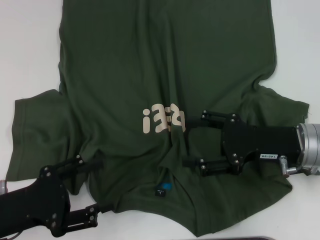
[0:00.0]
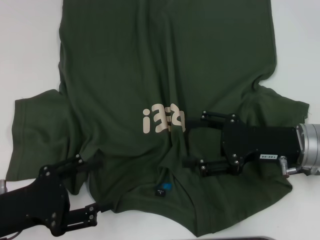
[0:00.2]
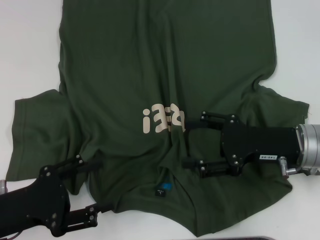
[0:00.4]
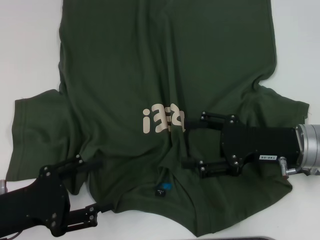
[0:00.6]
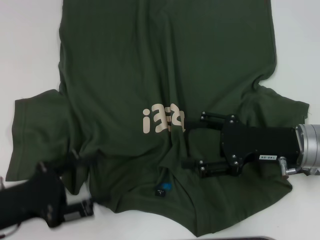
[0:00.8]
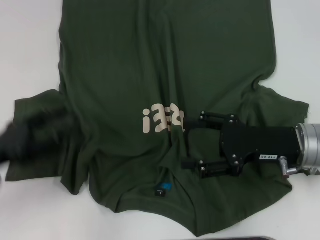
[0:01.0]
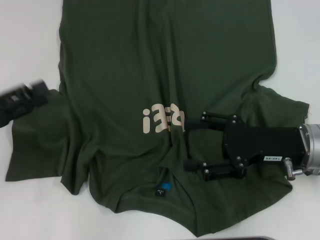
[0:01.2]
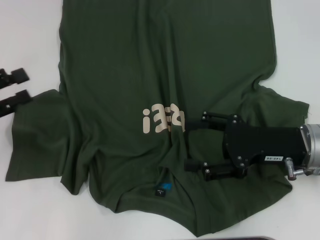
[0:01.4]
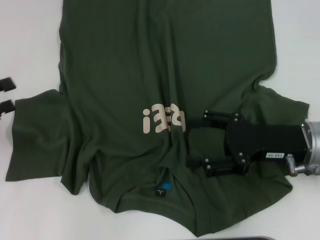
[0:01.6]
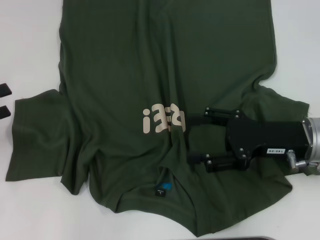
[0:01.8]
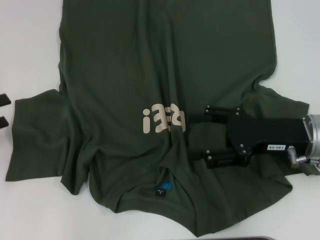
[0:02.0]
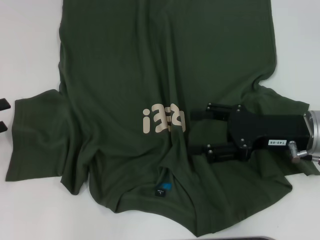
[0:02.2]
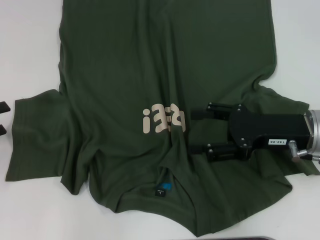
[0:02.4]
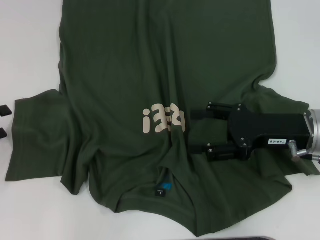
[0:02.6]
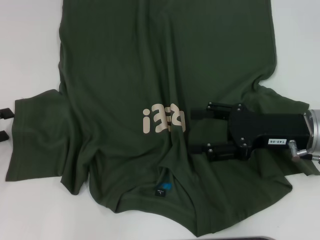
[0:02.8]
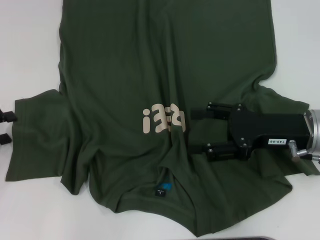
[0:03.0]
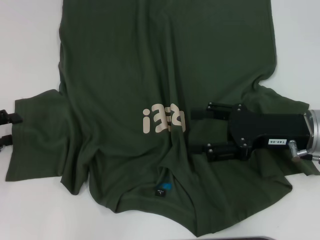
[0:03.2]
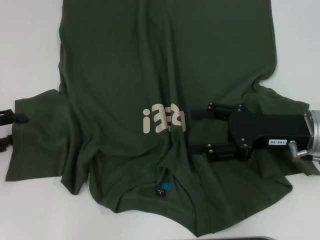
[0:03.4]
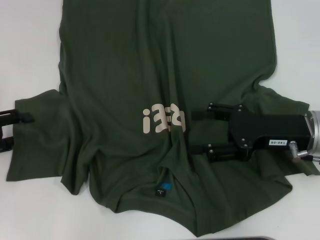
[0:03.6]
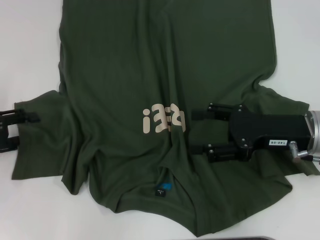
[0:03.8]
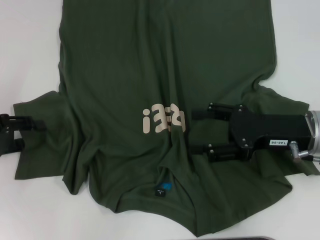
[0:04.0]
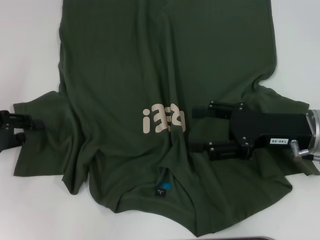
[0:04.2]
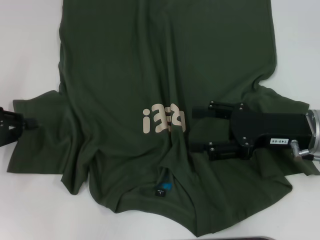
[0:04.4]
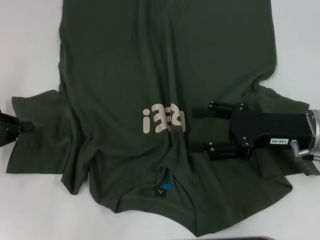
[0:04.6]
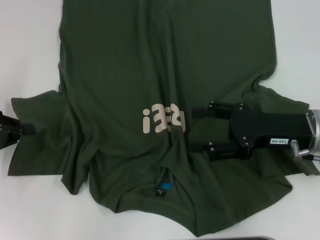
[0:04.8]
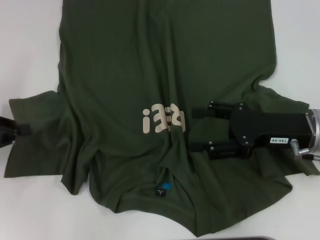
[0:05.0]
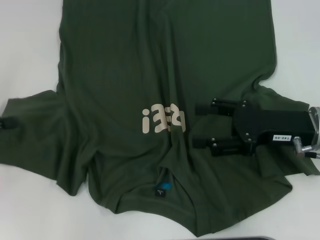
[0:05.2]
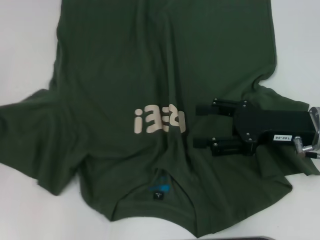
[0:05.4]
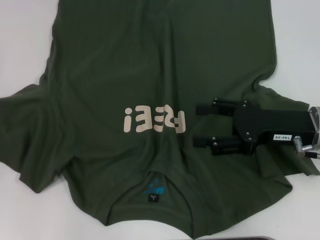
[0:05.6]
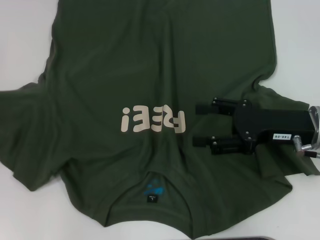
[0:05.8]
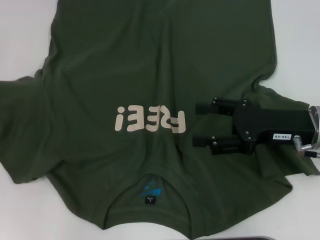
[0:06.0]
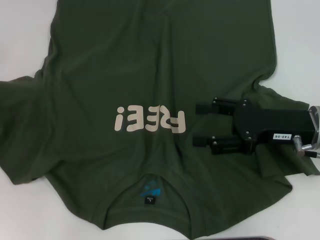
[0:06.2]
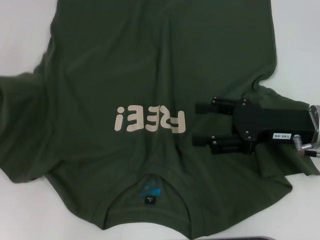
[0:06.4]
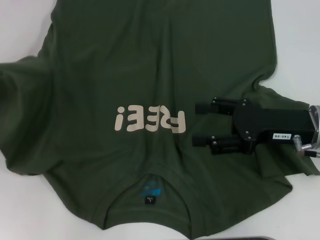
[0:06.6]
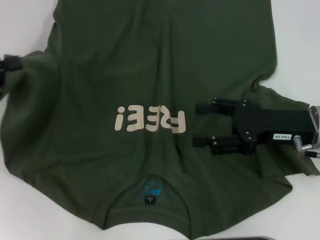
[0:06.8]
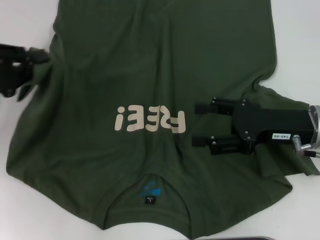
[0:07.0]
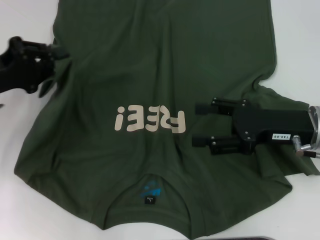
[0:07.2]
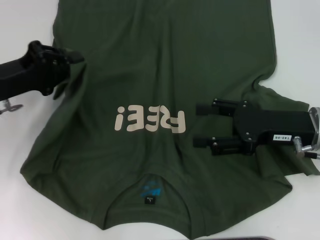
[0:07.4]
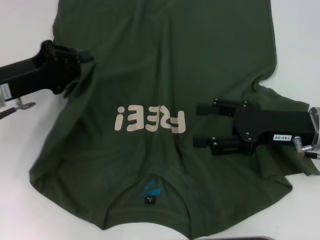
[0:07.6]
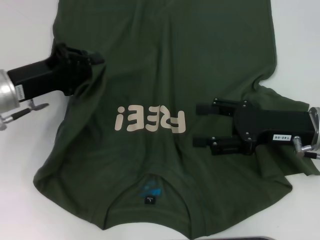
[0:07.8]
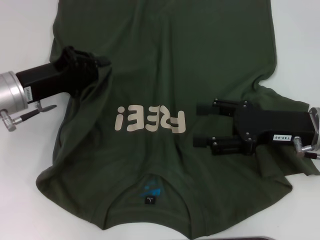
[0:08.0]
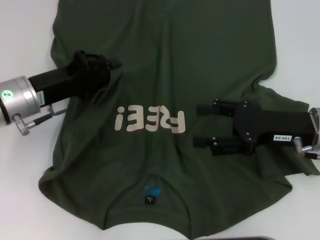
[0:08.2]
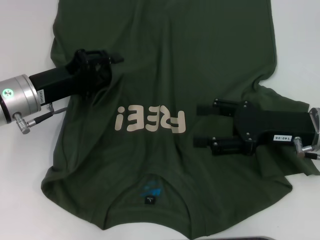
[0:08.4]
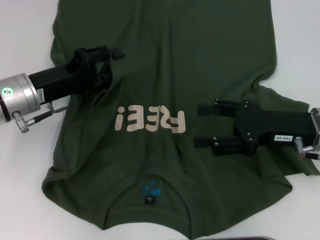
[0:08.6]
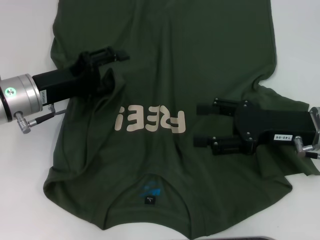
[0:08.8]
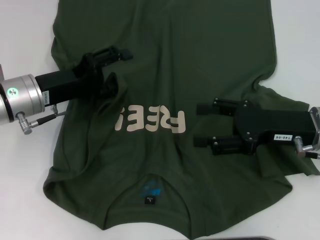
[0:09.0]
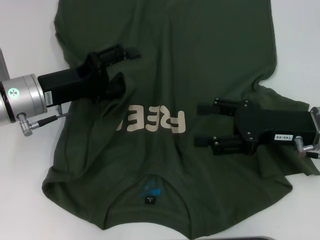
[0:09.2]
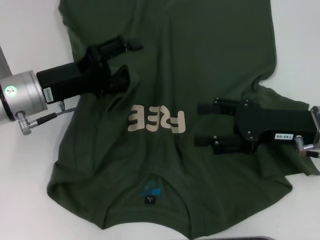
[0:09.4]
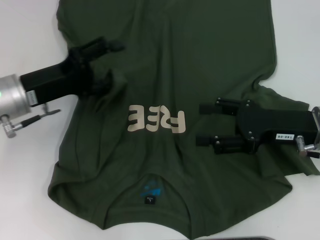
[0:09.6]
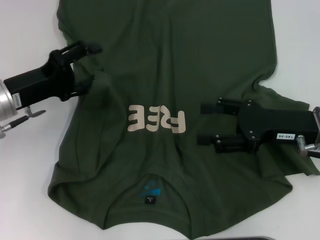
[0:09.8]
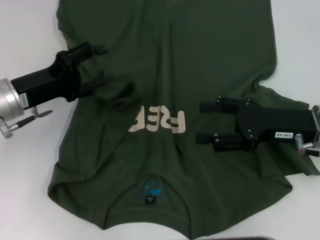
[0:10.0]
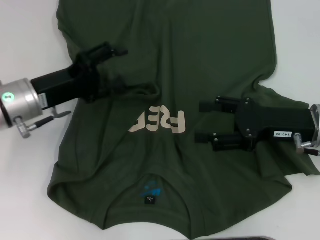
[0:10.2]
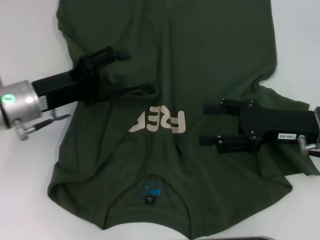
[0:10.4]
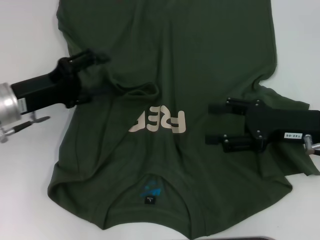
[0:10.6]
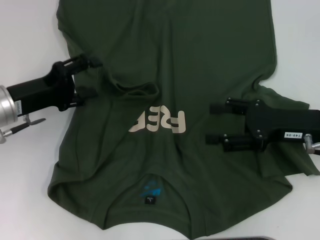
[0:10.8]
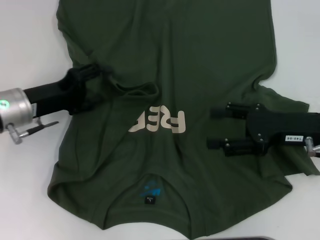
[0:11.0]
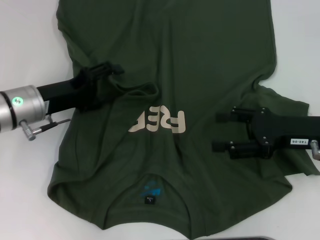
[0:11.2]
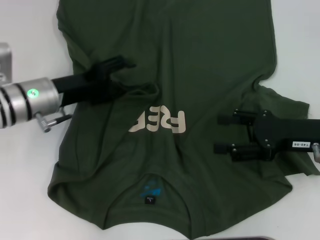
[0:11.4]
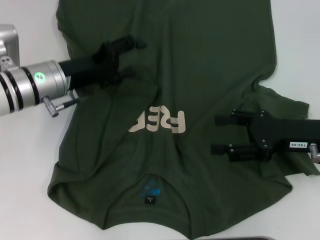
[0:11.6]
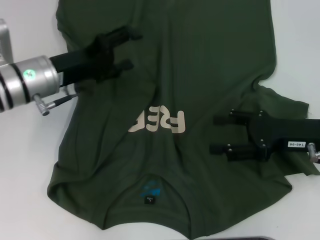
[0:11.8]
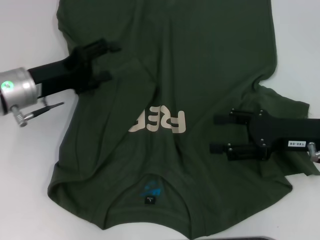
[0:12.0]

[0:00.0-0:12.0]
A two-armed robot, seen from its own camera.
0:00.0 to 0:01.6: The left gripper heads to the left and forward, covering approximately 15 cm.
0:01.6 to 0:03.0: The grippers make only small movements.
0:03.0 to 0:04.4: The left gripper closes.
0:04.4 to 0:06.0: The left gripper heads to the left, covering roughly 5 cm.
0:06.0 to 0:07.6: The left gripper is displaced to the right by roughly 15 cm.
0:07.6 to 0:09.0: The left gripper ends up some 5 cm from where it was, and opens up.
0:09.0 to 0:12.0: The grippers make only small movements.

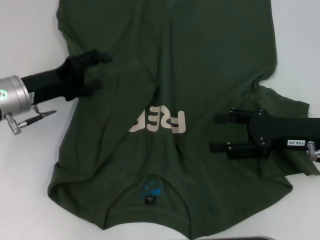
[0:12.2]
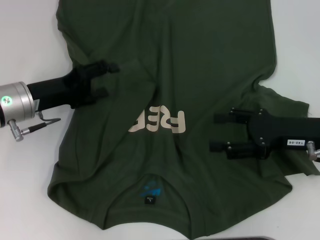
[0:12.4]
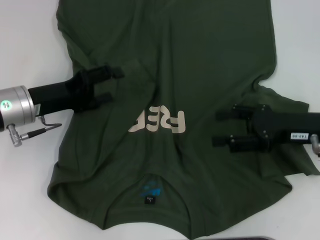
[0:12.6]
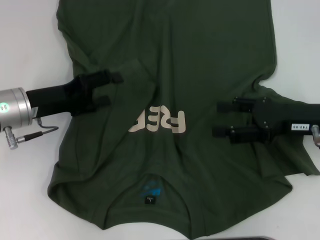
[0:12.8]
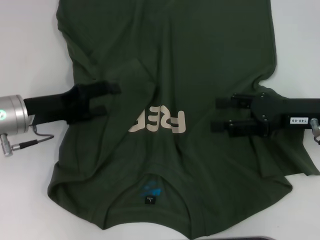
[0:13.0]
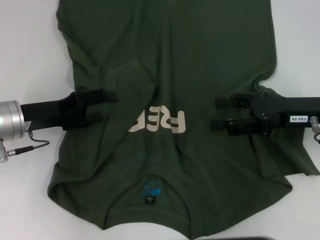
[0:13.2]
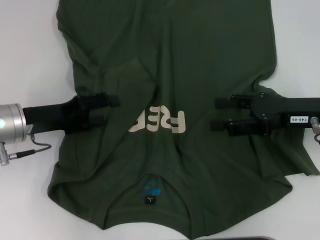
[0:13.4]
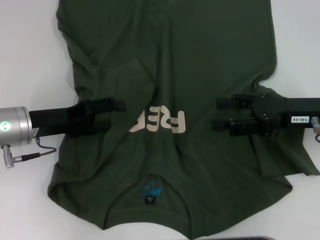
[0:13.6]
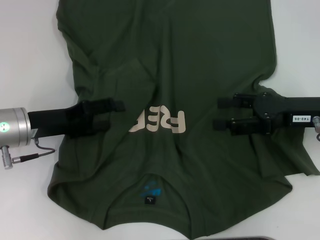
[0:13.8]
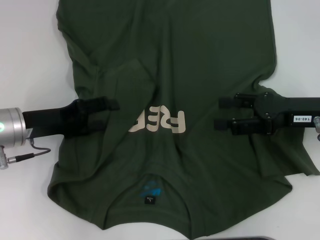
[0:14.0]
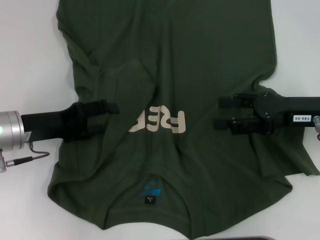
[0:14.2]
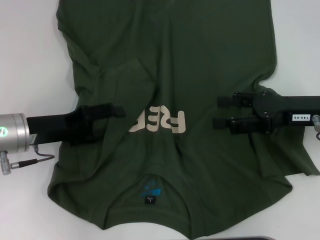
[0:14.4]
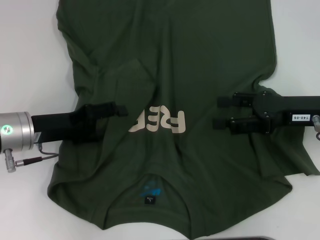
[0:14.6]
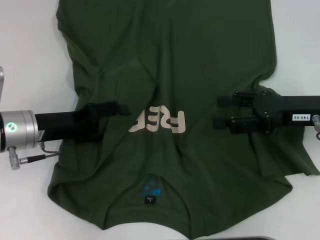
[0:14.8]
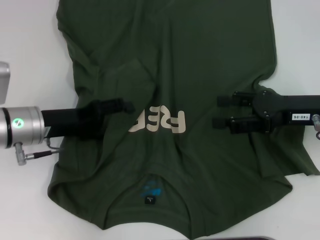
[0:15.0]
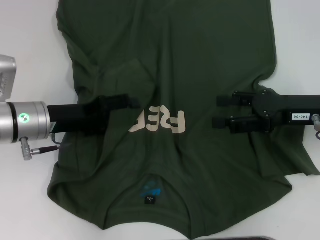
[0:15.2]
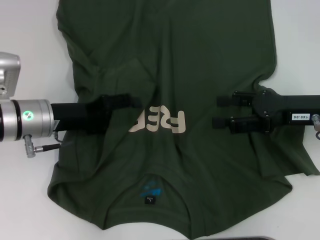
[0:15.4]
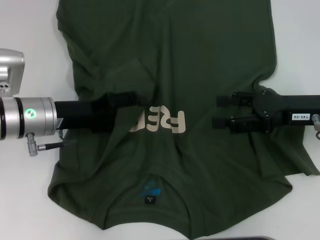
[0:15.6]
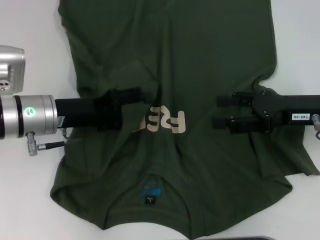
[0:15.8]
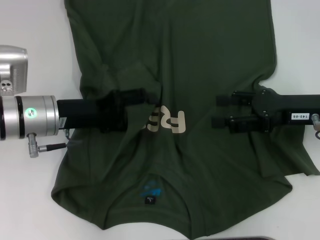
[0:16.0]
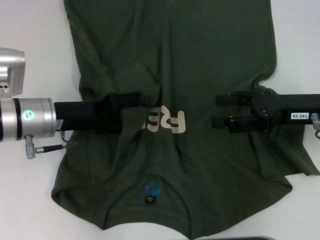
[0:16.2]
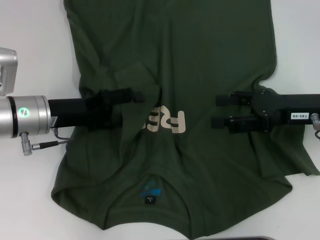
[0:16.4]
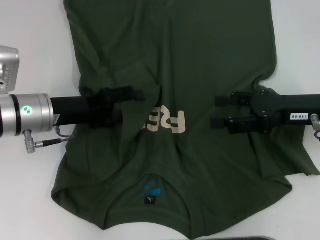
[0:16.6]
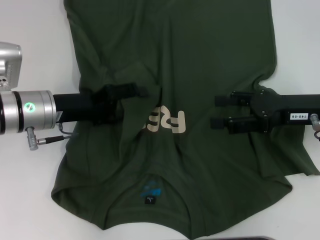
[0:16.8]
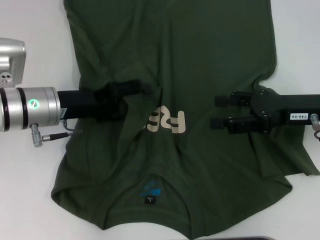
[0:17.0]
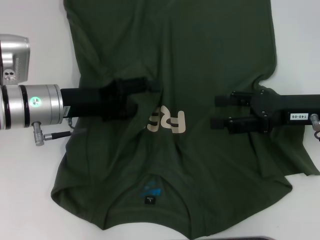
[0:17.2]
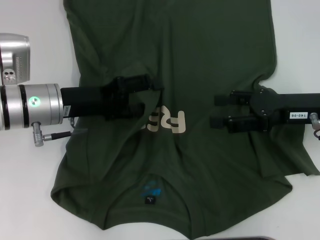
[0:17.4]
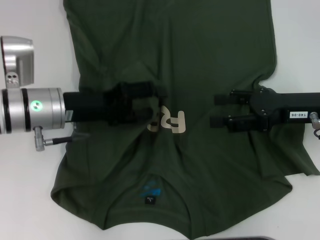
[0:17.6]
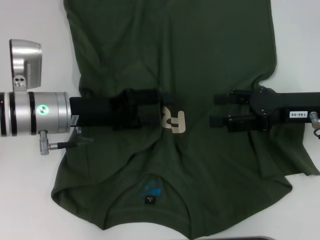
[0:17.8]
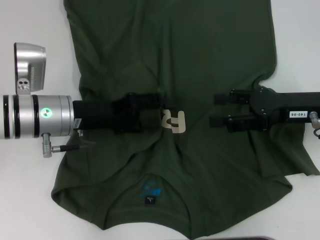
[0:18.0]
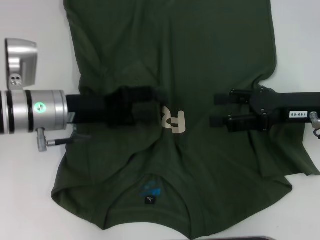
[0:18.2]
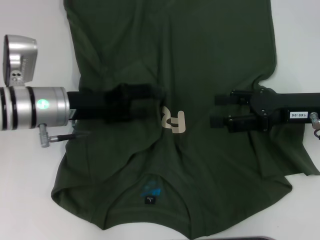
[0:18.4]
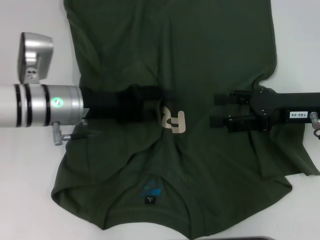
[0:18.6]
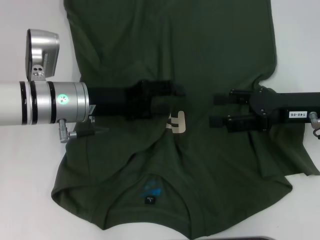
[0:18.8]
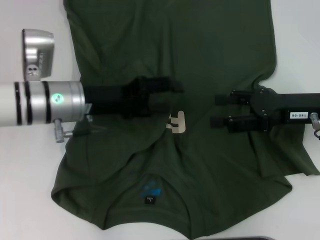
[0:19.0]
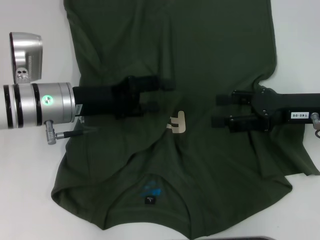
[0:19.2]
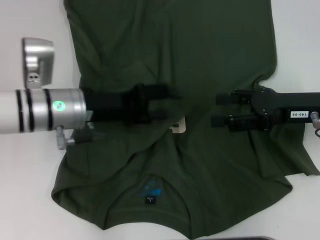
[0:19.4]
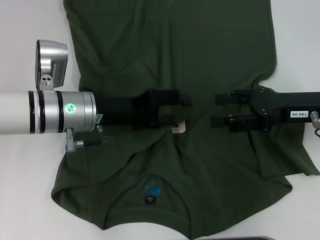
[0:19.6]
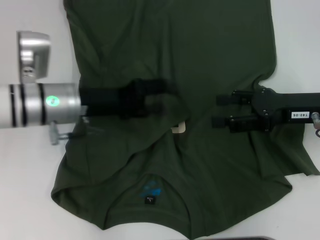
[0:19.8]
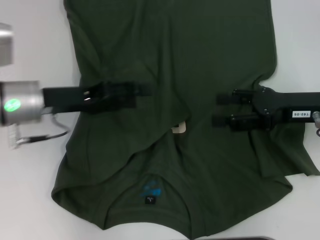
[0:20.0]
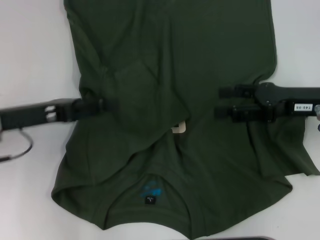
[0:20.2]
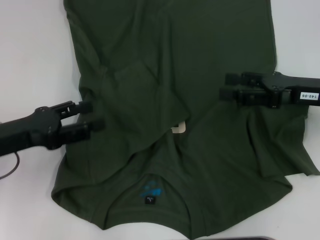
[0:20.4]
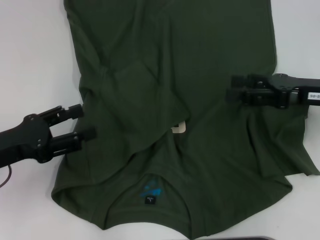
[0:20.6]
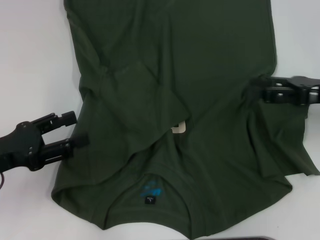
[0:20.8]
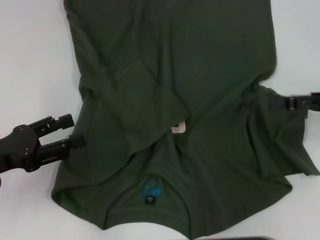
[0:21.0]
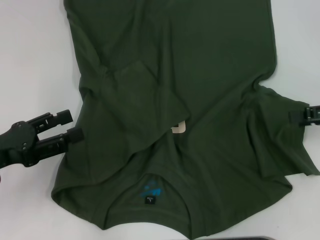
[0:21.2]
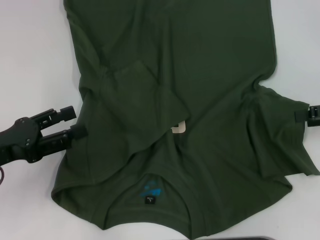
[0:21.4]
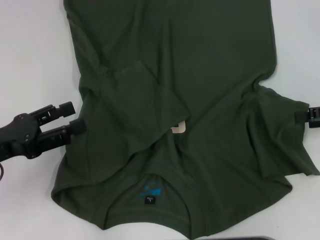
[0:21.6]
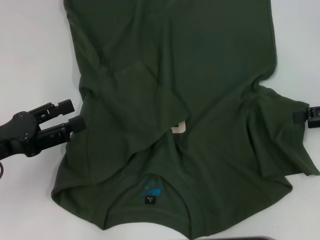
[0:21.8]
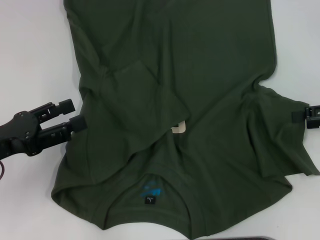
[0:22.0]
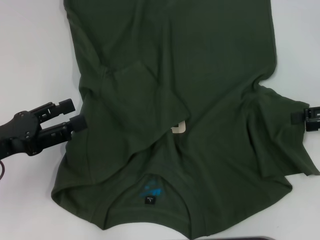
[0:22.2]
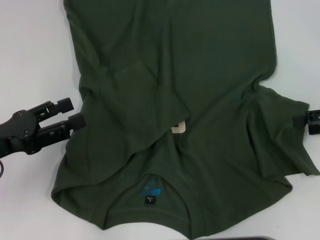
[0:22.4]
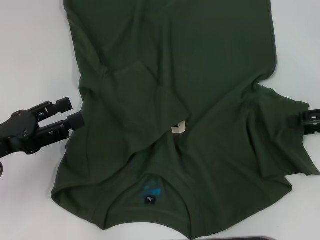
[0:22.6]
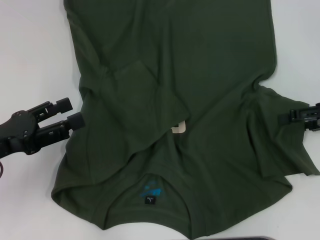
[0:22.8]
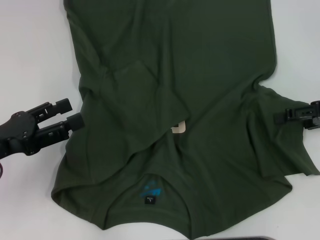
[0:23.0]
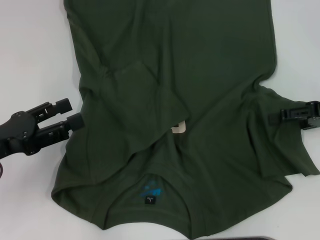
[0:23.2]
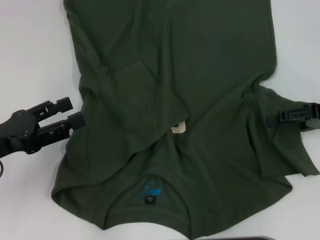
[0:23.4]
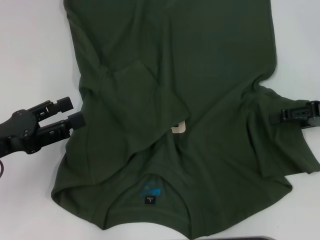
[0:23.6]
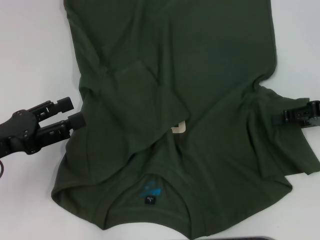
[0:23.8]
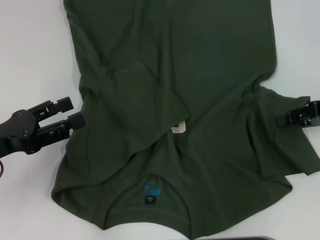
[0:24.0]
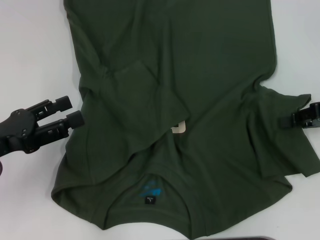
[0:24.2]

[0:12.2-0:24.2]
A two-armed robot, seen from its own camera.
Step, 0:12.2 to 0:19.2: Fold the bottom left sleeve with your left hand.
0:12.2 to 0:15.2: The grippers make only small movements.
0:15.2 to 0:18.2: The grippers move only a little.
0:18.2 to 0:19.8: There are only small adjustments of the grippers.
0:19.8 to 0:21.2: The left gripper is displaced to the left and backward by roughly 15 cm. The right gripper heads to the right, covering about 10 cm.
0:21.2 to 0:22.6: The grippers make only small movements.
0:22.6 to 0:24.2: The right gripper closes up.
